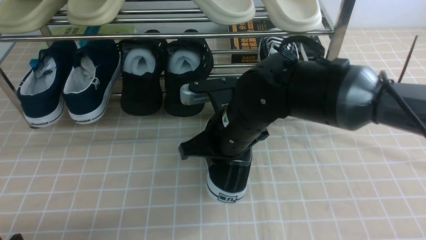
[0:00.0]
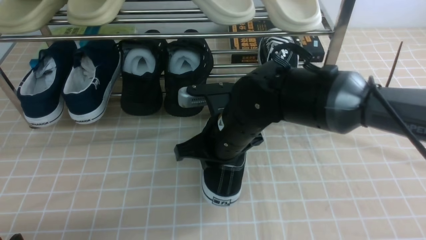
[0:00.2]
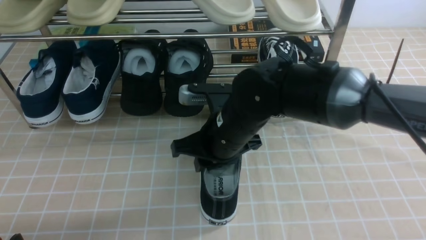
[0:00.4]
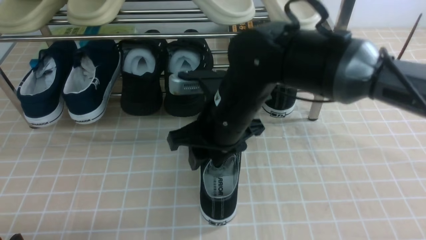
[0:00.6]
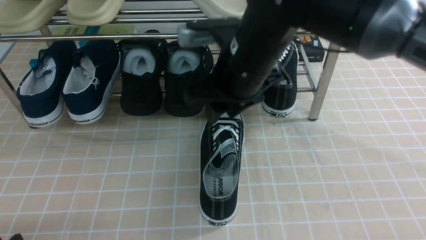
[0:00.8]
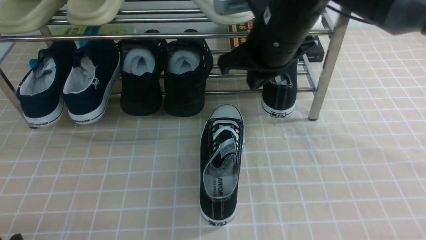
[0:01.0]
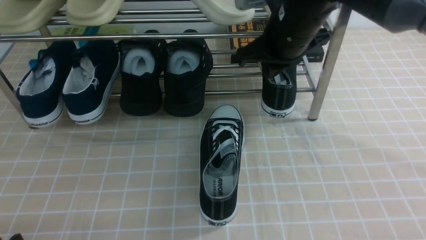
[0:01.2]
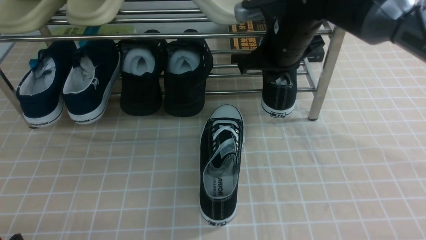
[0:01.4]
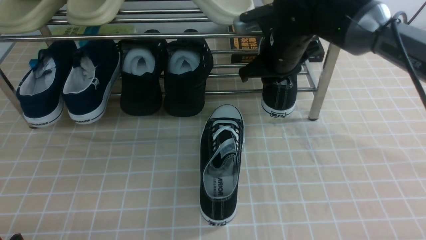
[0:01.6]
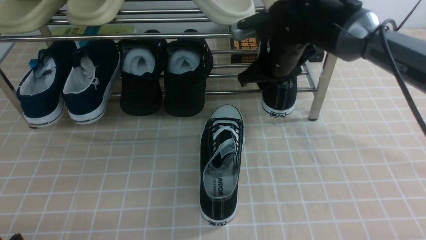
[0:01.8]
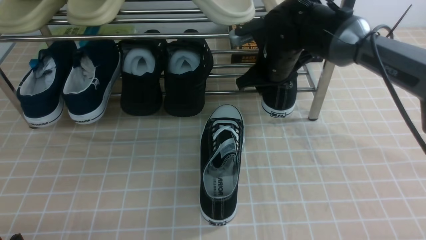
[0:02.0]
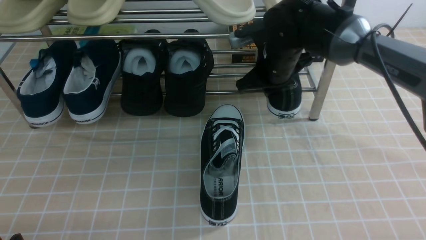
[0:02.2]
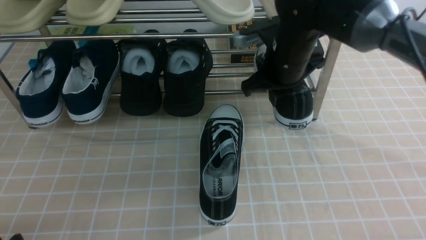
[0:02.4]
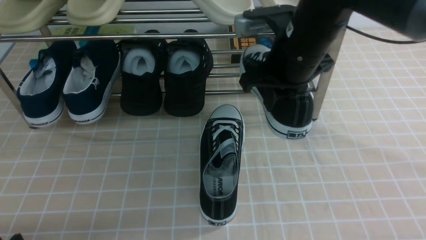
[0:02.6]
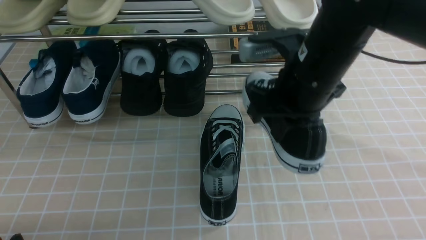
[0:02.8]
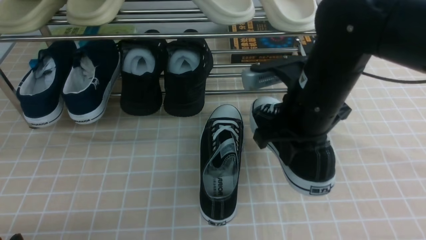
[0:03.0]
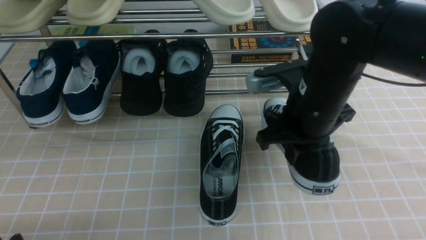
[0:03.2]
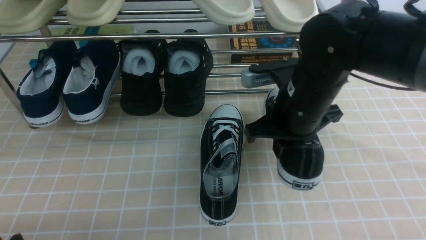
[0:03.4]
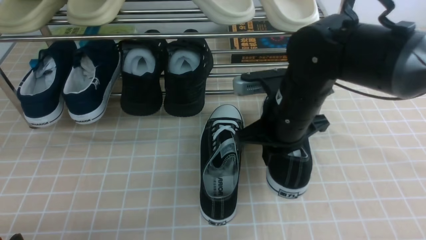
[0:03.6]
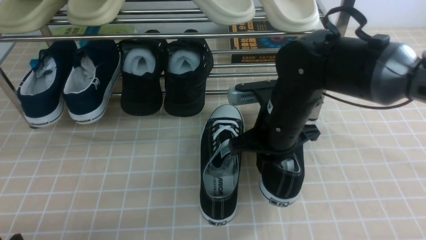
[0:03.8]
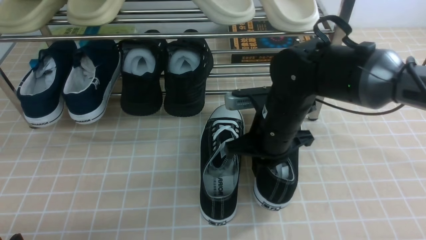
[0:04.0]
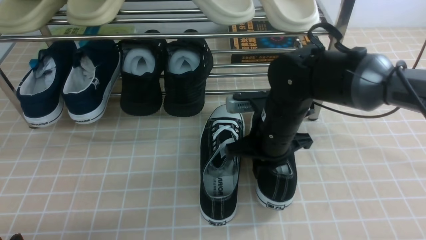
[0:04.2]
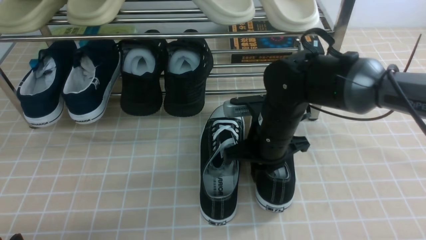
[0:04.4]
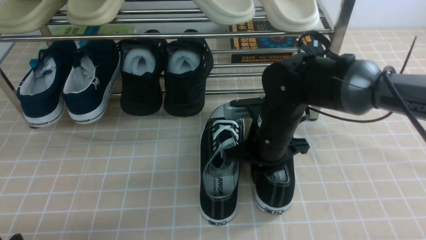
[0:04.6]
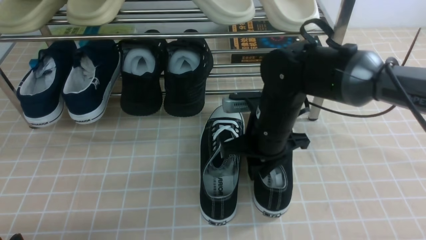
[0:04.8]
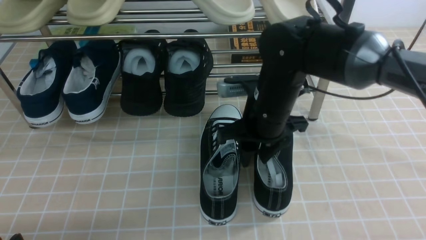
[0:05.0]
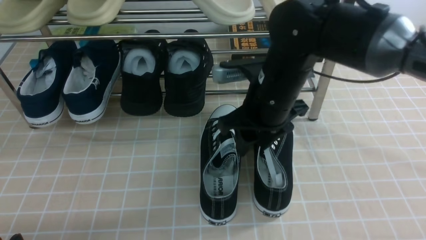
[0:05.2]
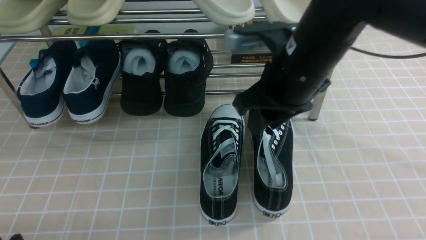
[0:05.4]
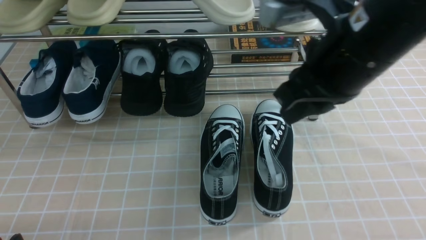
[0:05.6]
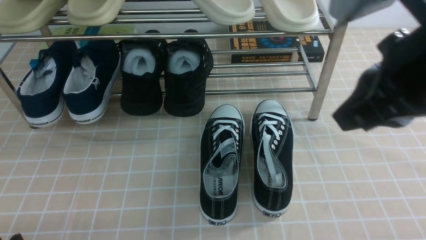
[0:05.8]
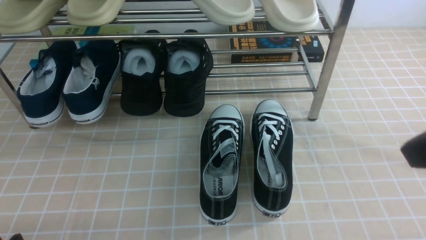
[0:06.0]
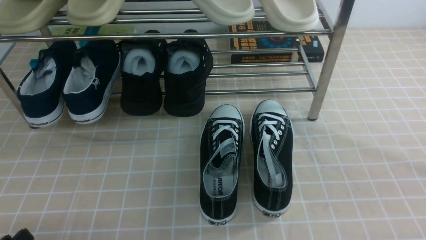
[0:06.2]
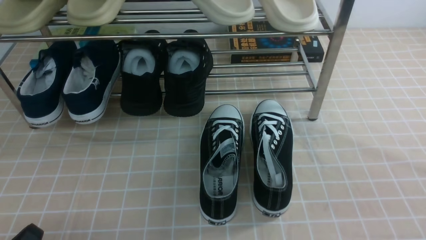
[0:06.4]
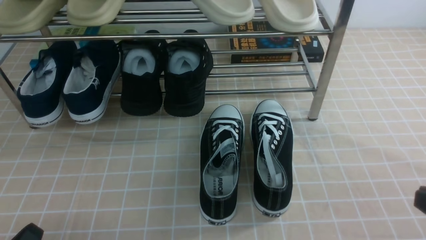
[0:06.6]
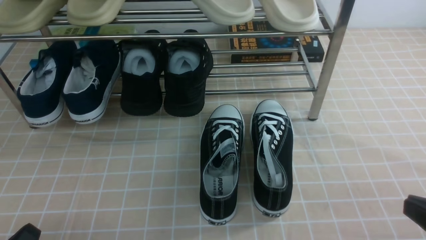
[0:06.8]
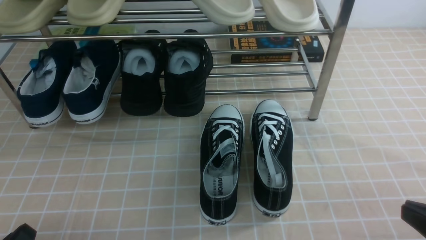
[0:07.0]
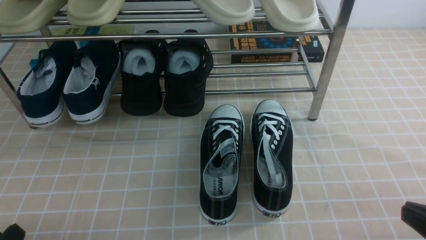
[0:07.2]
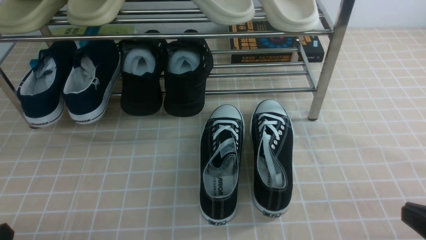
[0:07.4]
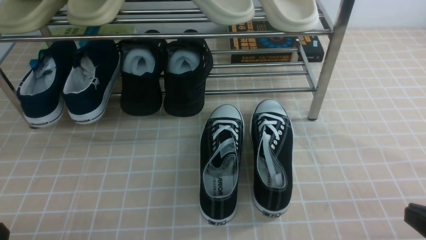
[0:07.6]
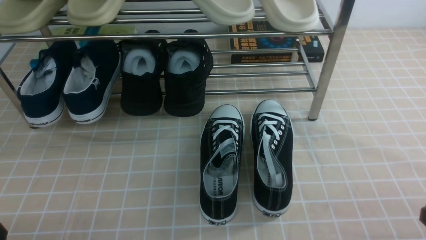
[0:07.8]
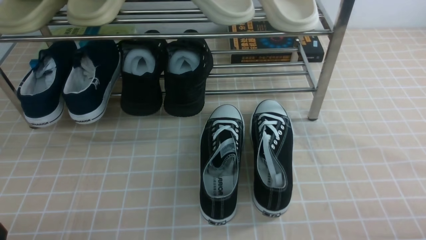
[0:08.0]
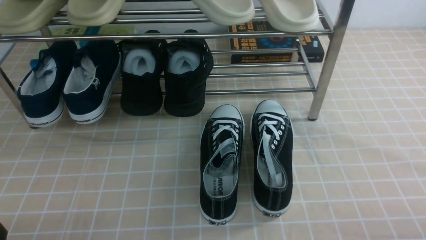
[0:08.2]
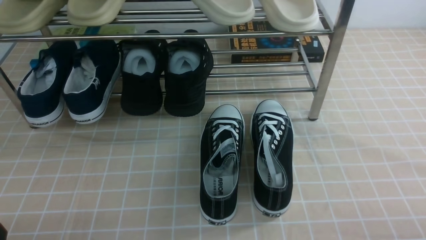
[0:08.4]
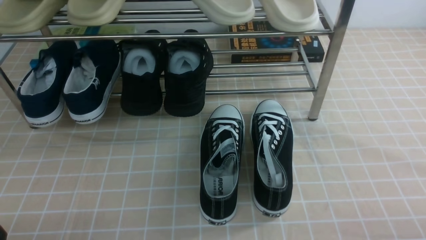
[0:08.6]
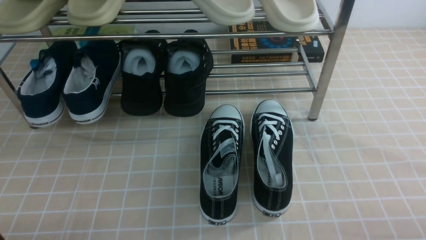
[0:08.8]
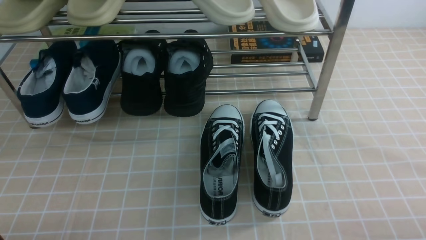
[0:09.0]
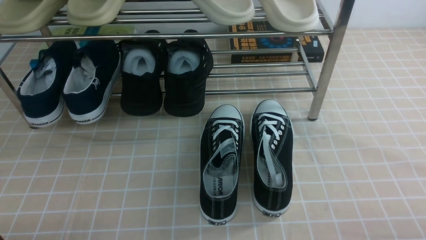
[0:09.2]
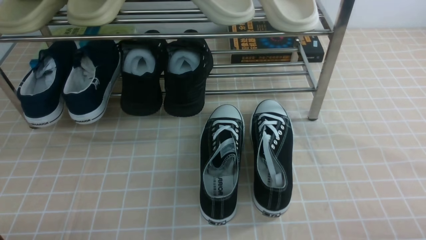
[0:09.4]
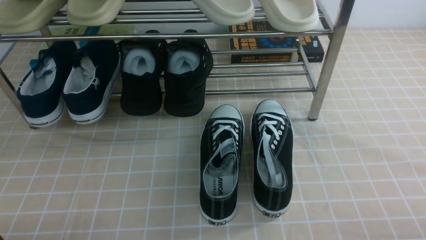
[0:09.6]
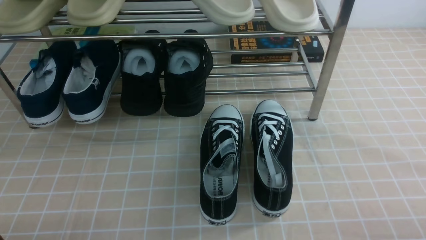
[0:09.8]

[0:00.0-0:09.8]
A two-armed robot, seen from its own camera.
Step, 0:00.8 to 0:02.2: use the right arm to clamp a shoe on the right side of the shoe rack.
Step, 0:02.4 to 0:04.8: use the right arm to take out the clamped shoe from the shoe rack and put it down.
0:00.0 to 0:01.4: The right gripper shifts approximately 15 cm forward, to the right and upward, and opens, then closes once more.
0:01.4 to 0:02.8: The right gripper moves backward, some 10 cm, and opens, then closes again.
0:02.8 to 0:04.2: The right gripper travels downward by about 10 cm.
0:04.2 to 0:05.6: The right gripper goes approximately 20 cm upward and backward, and opens, then closes once more.
0:05.6 to 0:07.0: The right gripper goes approximately 25 cm backward, downward and to the right.
0:07.0 to 0:08.4: The right gripper travels downward by approximately 10 cm.
0:08.4 to 0:09.8: Both grippers stay put.
